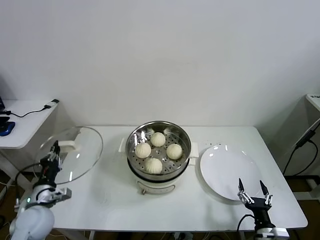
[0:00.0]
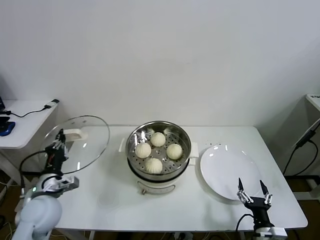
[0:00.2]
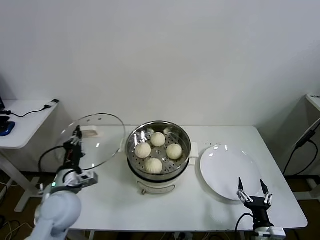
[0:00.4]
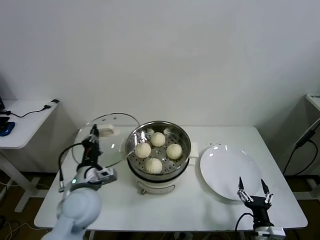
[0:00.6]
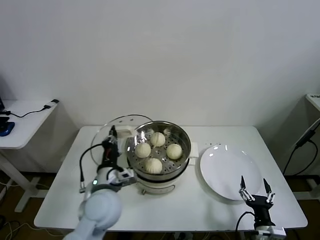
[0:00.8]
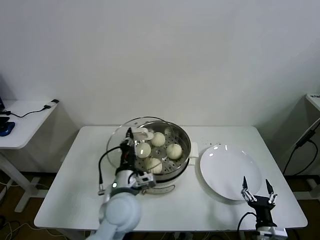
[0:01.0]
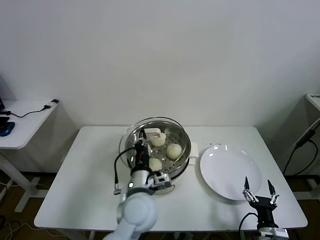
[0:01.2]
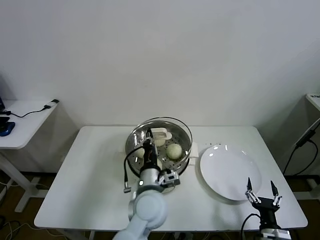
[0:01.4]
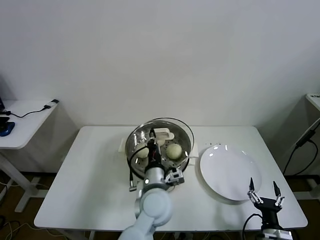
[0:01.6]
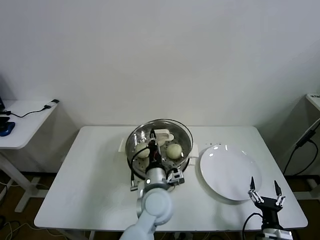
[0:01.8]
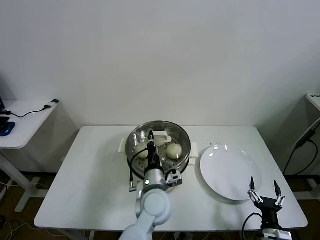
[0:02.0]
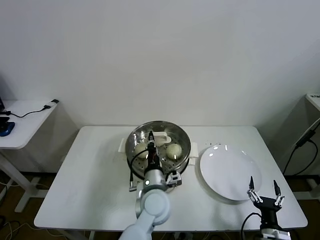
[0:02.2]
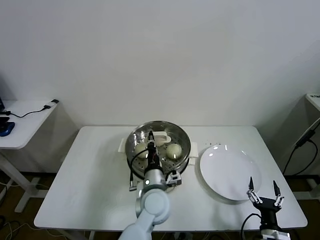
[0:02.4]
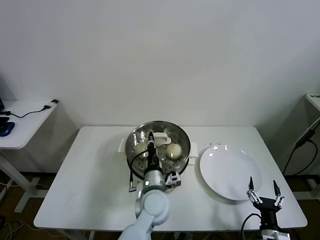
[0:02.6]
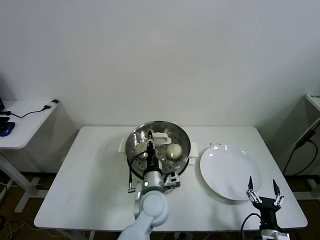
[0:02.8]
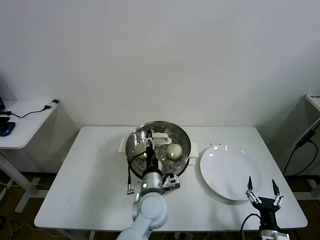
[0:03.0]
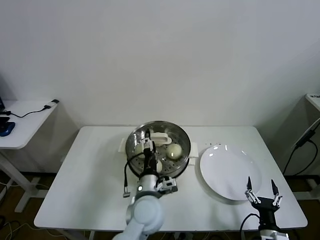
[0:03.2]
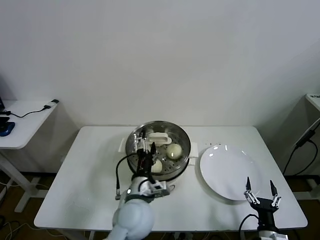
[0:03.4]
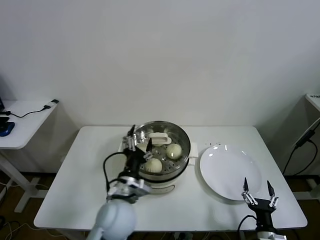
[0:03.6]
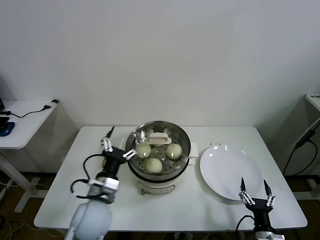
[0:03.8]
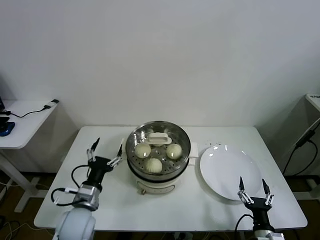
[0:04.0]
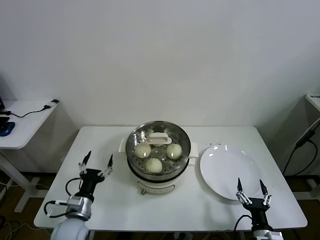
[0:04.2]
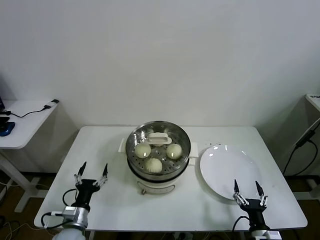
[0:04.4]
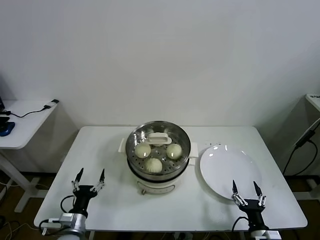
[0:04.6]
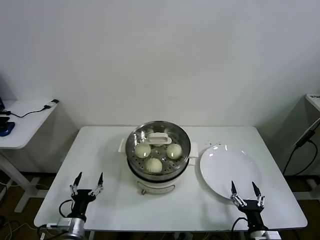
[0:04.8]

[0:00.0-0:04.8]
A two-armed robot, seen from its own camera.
Task of the whole recording: take steamed baozi put them in steamer then cover it.
Step, 0:00.0 to 0:02.8: Place the pot lid on the steamer with left gripper.
0:00.0 to 0:01.6: The left gripper goes about 35 cm to the right.
0:01.6 to 0:03.2: The left gripper opens its fingers.
0:03.2 to 0:04.8: The left gripper heads to the left and downward, covering some 30 cm.
